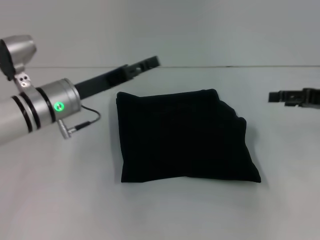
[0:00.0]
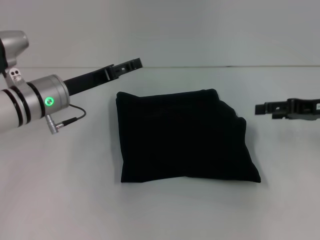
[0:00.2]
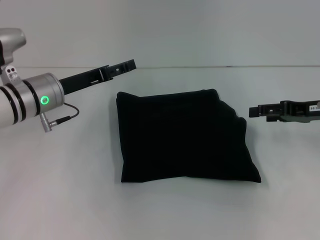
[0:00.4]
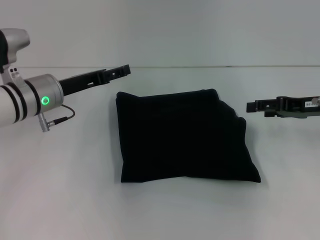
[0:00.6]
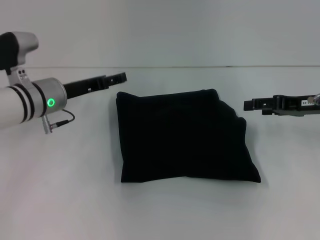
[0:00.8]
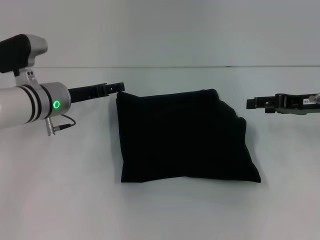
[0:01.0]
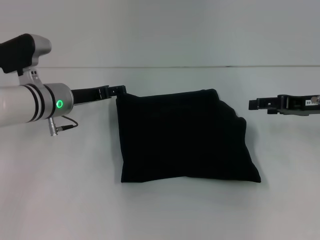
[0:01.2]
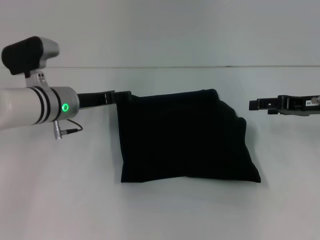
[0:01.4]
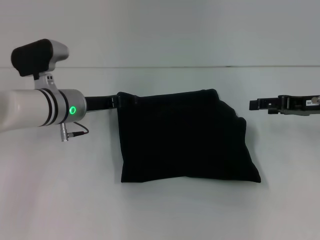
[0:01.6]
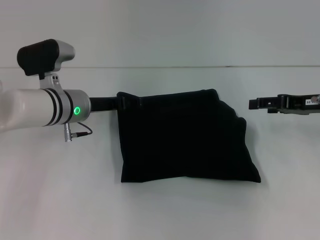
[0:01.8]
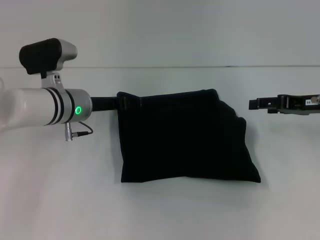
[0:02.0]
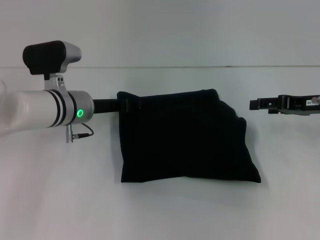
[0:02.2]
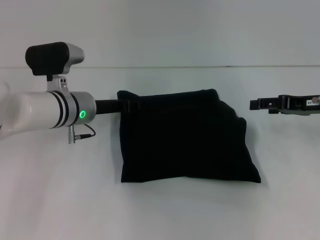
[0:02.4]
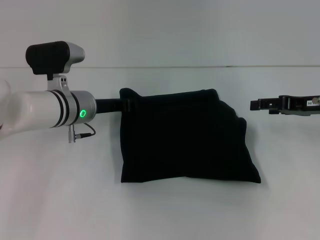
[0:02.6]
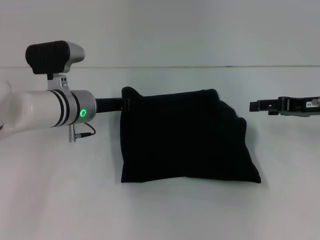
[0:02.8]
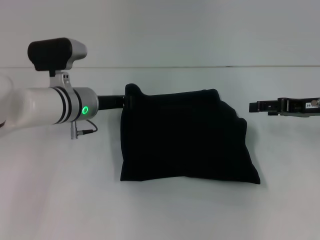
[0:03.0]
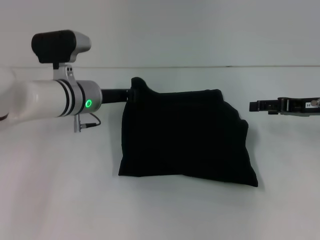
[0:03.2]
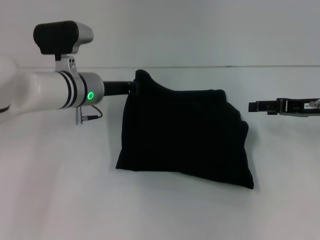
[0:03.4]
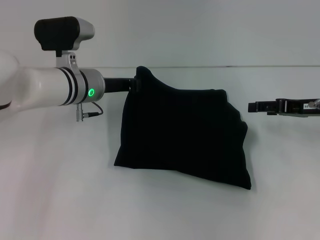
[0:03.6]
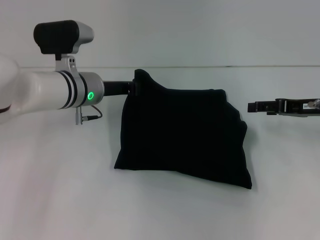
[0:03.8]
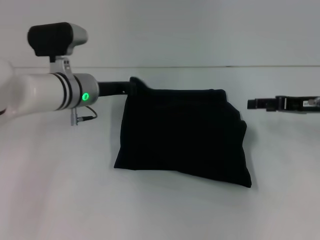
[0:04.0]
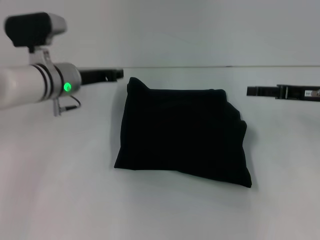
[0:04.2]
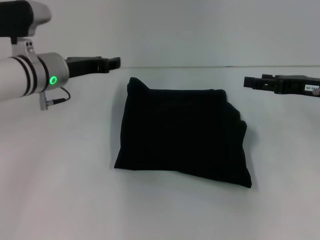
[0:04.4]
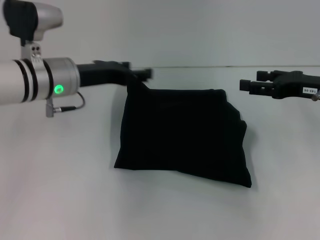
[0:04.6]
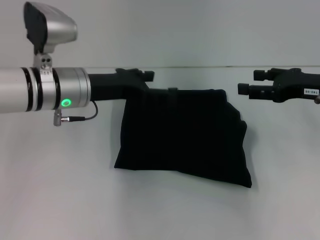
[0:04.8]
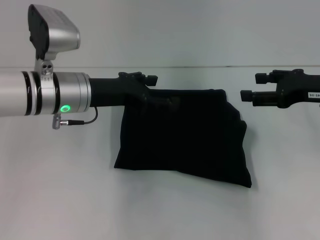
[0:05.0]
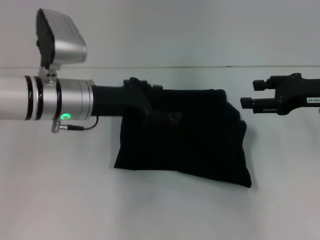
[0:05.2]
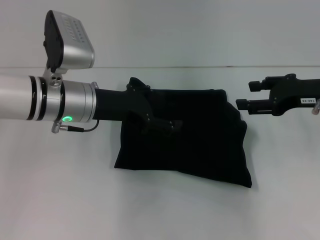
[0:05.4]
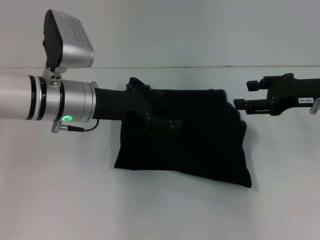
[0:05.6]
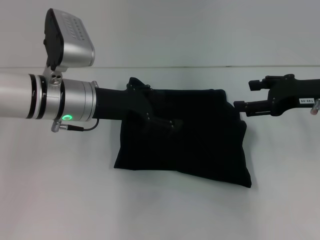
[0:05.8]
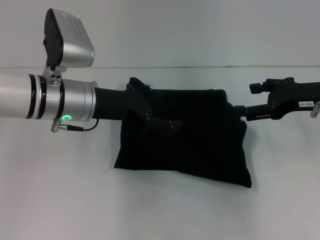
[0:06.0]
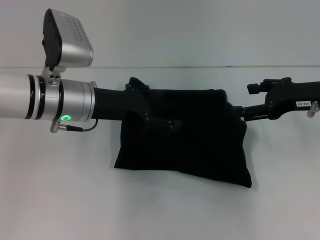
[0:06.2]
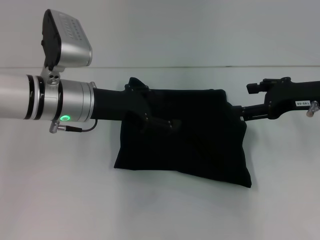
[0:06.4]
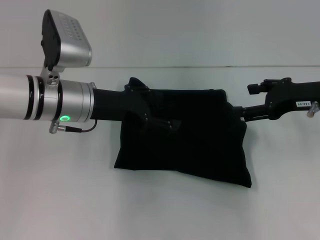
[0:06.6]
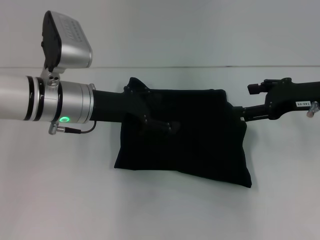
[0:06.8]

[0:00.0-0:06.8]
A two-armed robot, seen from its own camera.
0:01.4 to 0:02.8: The left gripper closes.
0:02.8 to 0:04.0: The grippers stay close to where they were, moving slightly.
0:04.0 to 0:05.4: The left gripper is displaced backward by about 5 cm, and opens up.
0:05.4 to 0:06.8: Neither gripper changes place.
